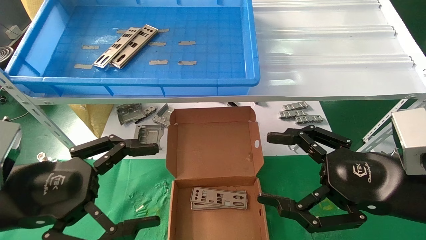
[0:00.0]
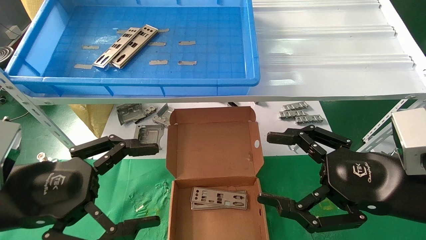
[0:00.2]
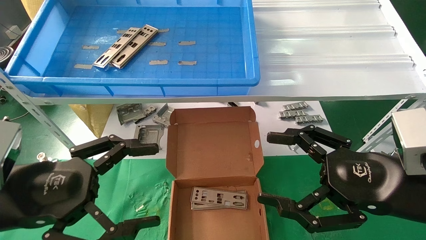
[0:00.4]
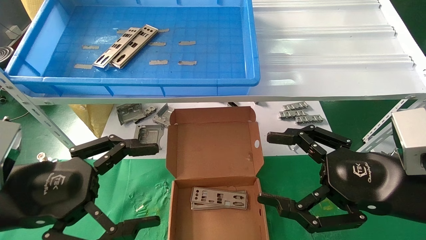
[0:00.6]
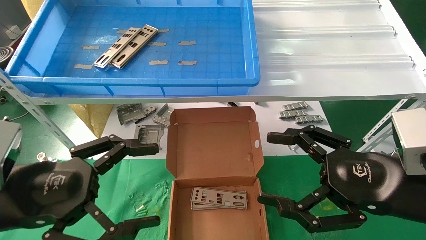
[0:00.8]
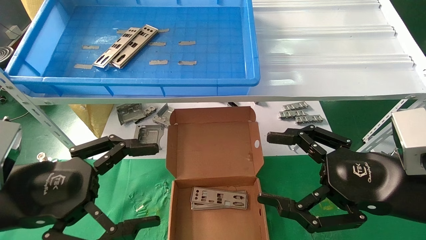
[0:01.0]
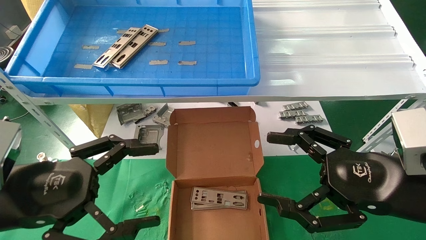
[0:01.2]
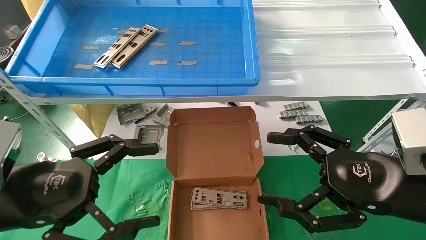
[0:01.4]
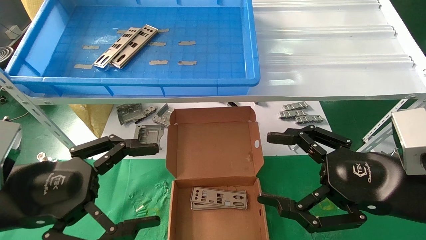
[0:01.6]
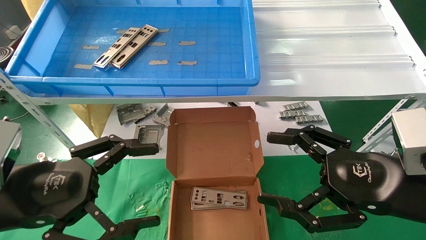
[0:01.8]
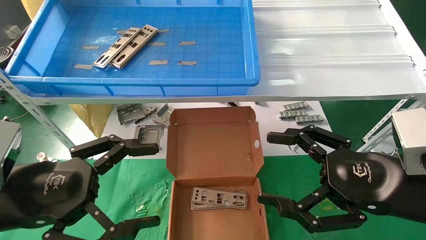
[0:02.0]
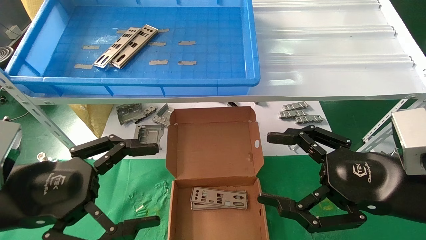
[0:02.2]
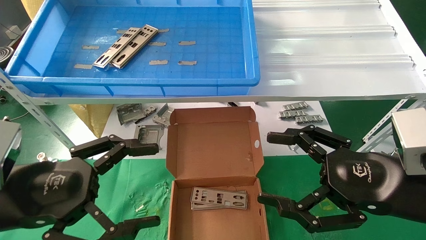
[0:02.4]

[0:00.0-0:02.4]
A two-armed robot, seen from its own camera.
Task of the whole recording: pick up the parts on the tray and put them in the cardboard box.
0:00.0 to 0:02.4: Neither gripper changes place.
